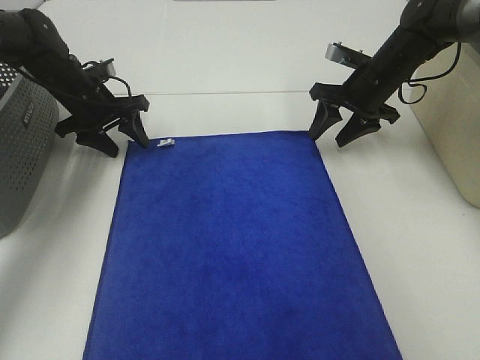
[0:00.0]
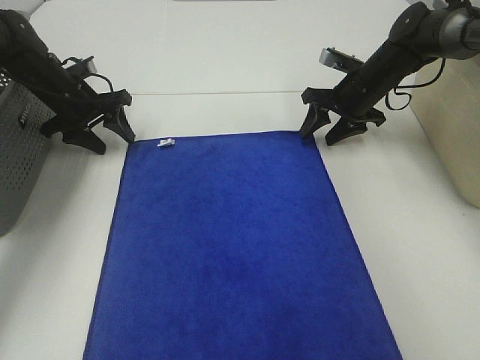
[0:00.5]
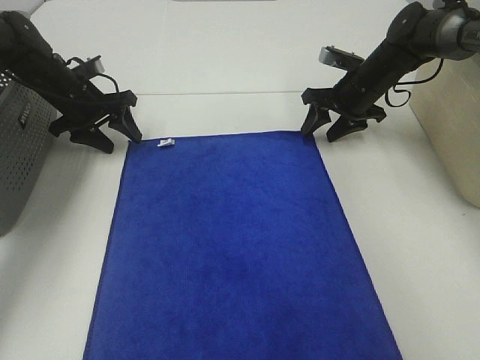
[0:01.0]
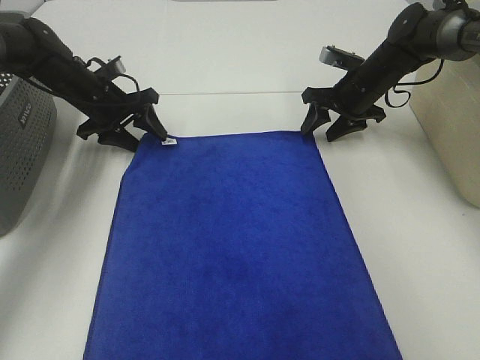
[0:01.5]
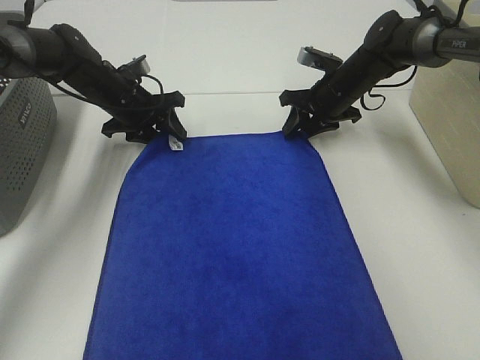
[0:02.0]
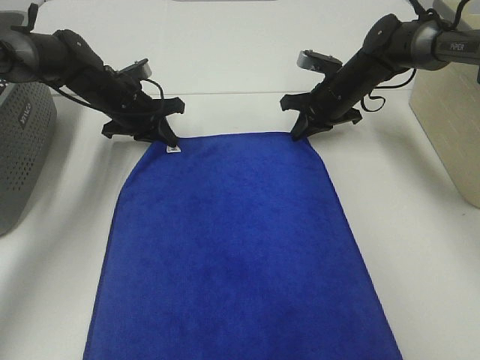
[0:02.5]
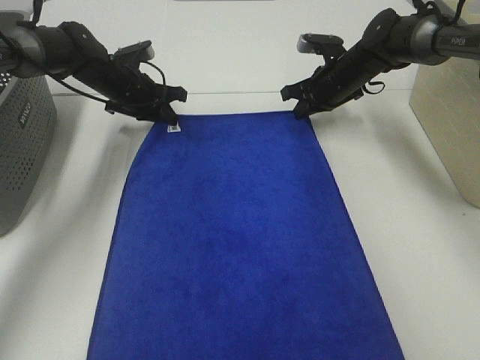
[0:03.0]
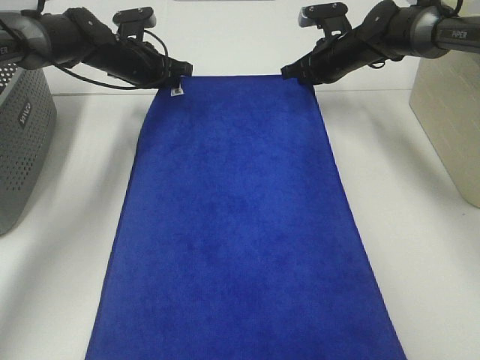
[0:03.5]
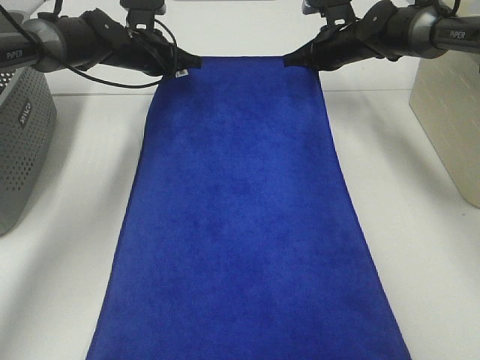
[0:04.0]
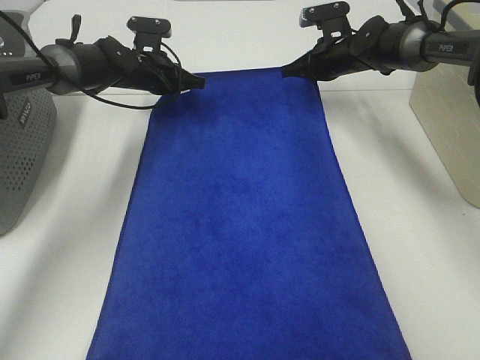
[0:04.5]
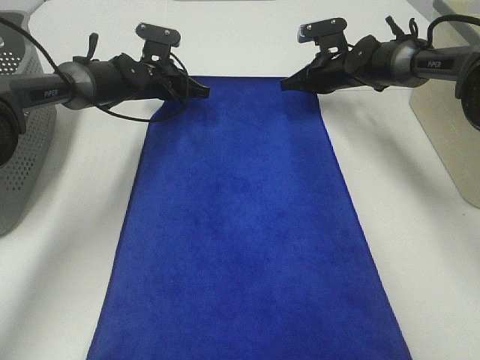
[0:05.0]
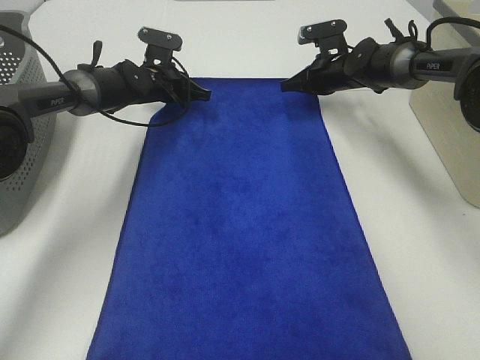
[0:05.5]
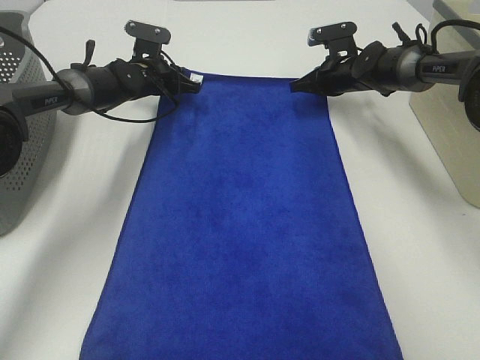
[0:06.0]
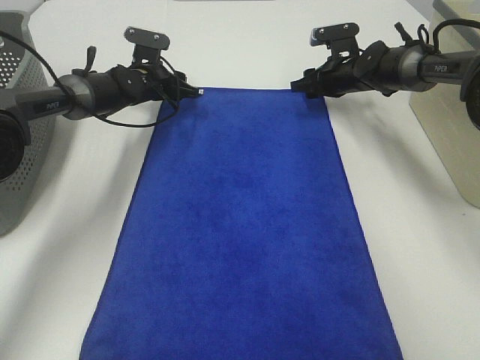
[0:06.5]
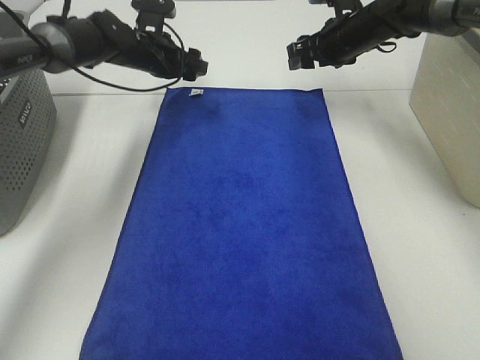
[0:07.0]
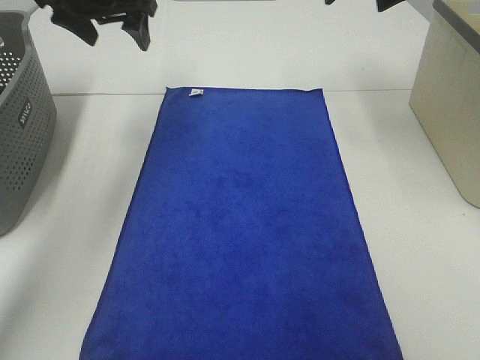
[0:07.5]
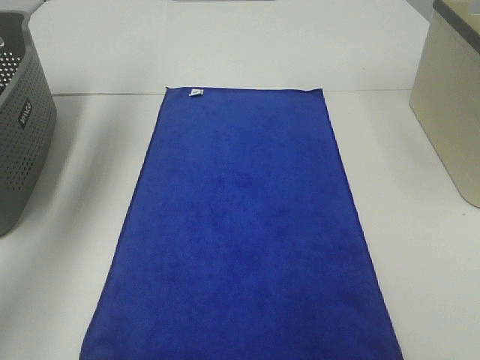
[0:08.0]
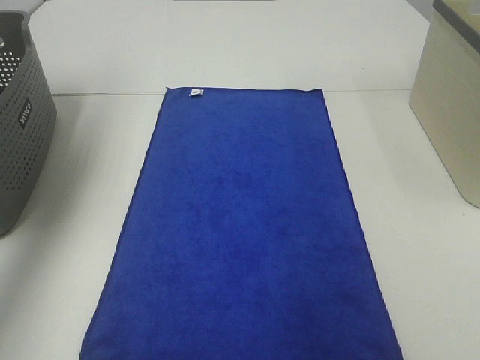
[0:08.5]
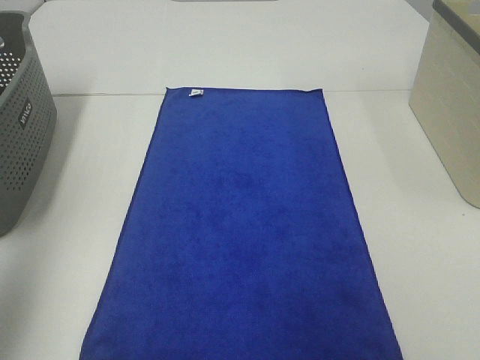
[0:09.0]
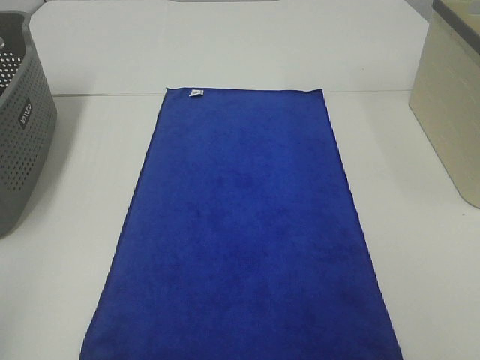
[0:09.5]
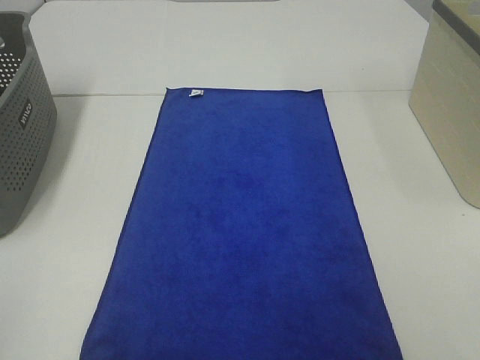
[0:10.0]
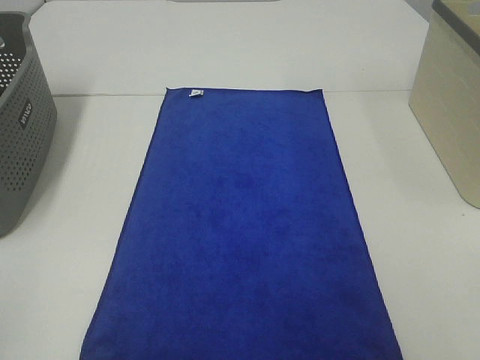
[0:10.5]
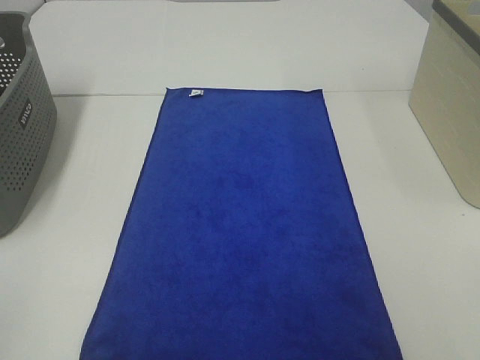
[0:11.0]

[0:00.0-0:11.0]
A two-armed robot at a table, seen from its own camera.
Task of the whole recording: Remove the towel and place it.
0:00.0 to 0:02.0: The right gripper moves about 5 cm, while the left gripper goes roughly 5 cm to the right.
0:02.0 to 0:03.5: The right gripper ends up approximately 5 cm from where it was, and closes. Meanwhile the left gripper ends up approximately 5 cm from where it was, and closes up.
0:03.5 to 0:05.5: The left gripper travels downward by some 5 cm.
0:05.5 to 0:07.5: Both grippers move upward and backward, roughly 25 cm. The left gripper opens; the right gripper opens.
0:07.5 to 0:09.0: The left gripper goes about 35 cm backward and to the left. Meanwhile the right gripper goes roughly 35 cm backward.
0:09.0 to 0:11.0: The left gripper is displaced backward and downward by roughly 20 cm.

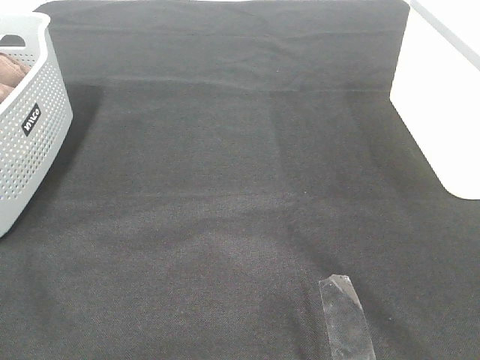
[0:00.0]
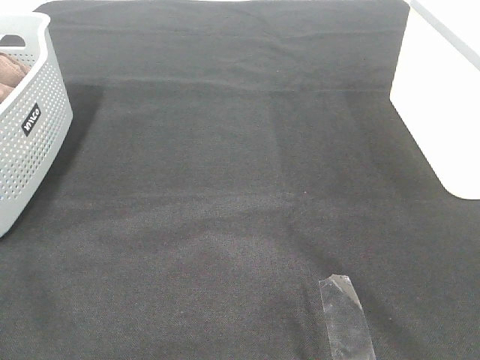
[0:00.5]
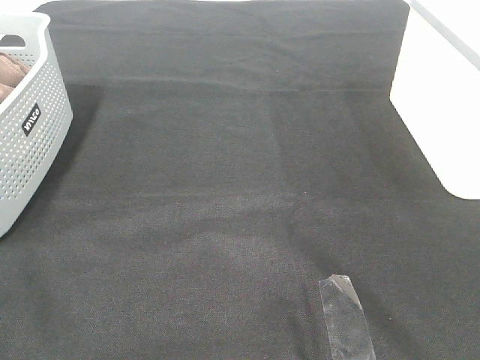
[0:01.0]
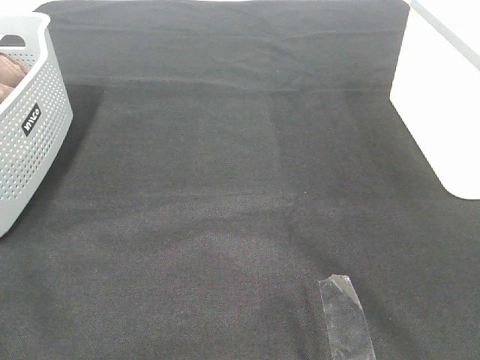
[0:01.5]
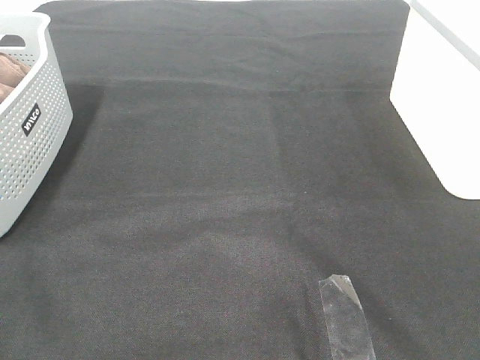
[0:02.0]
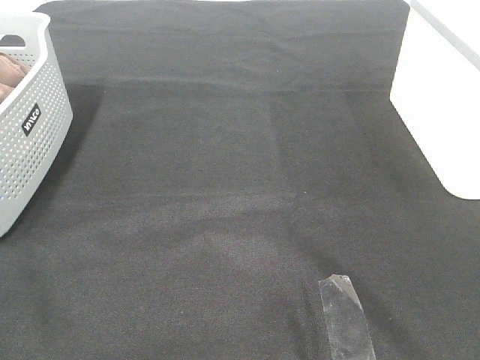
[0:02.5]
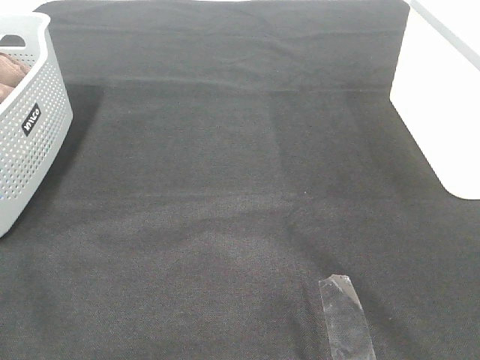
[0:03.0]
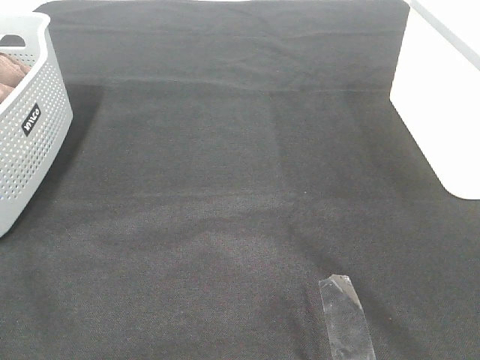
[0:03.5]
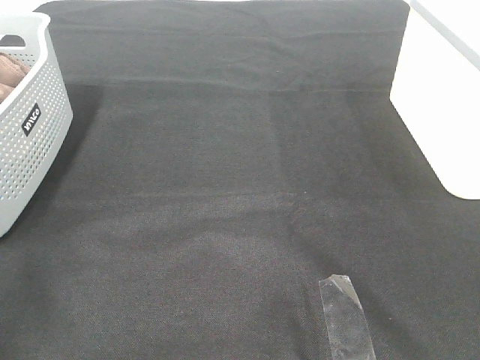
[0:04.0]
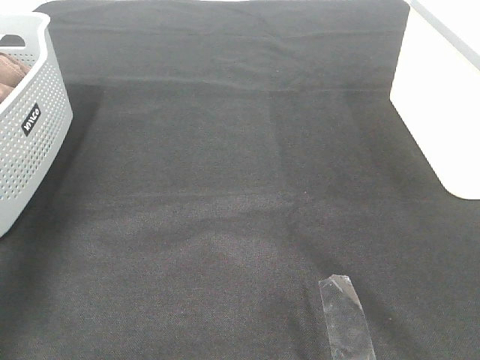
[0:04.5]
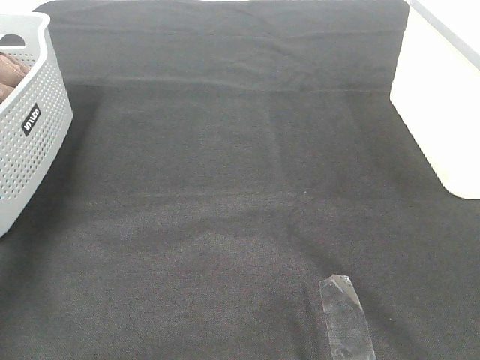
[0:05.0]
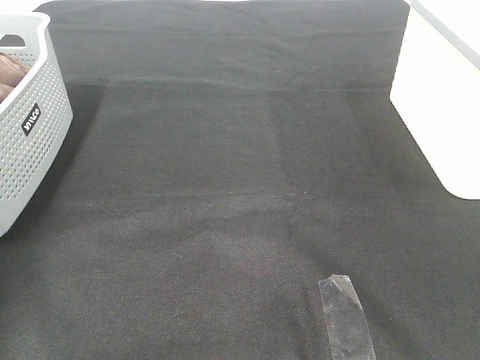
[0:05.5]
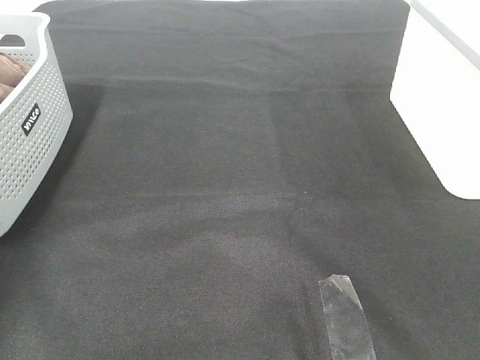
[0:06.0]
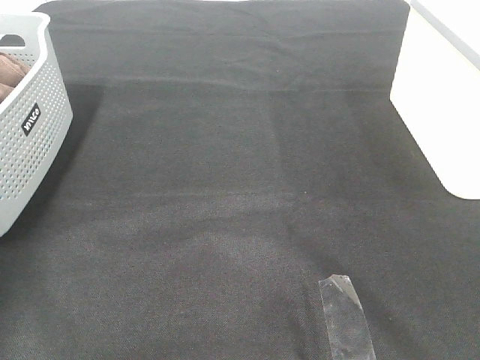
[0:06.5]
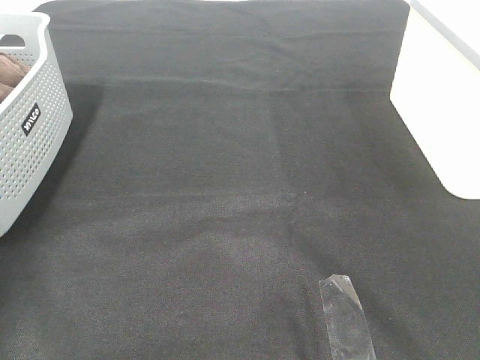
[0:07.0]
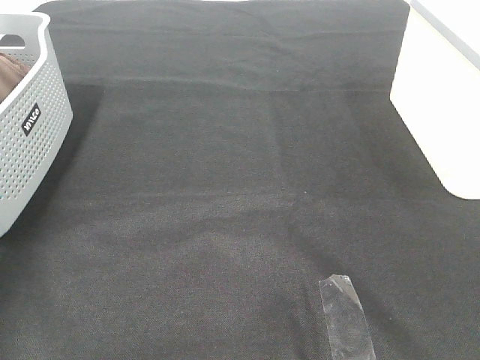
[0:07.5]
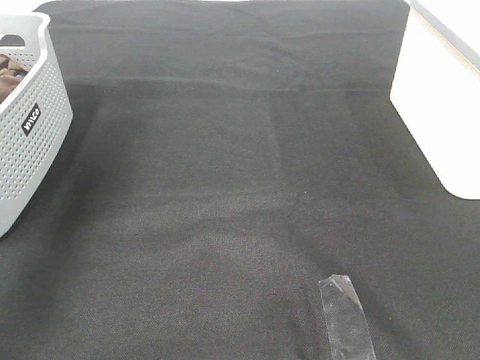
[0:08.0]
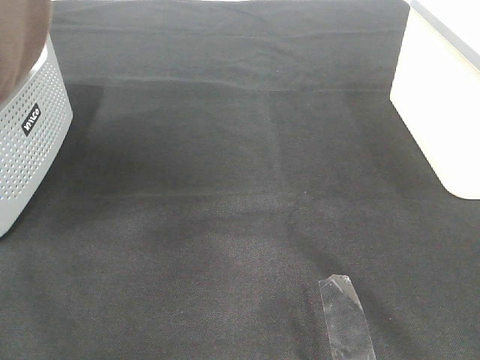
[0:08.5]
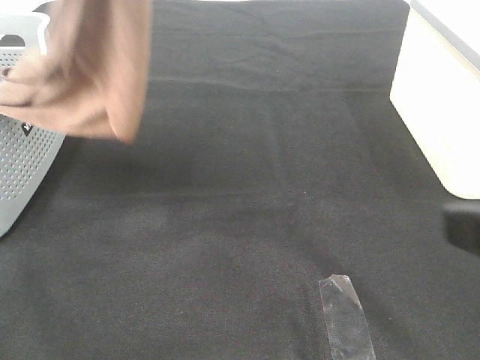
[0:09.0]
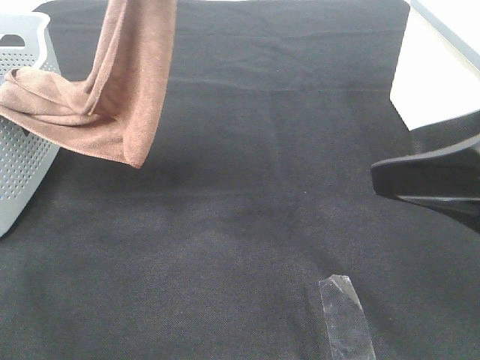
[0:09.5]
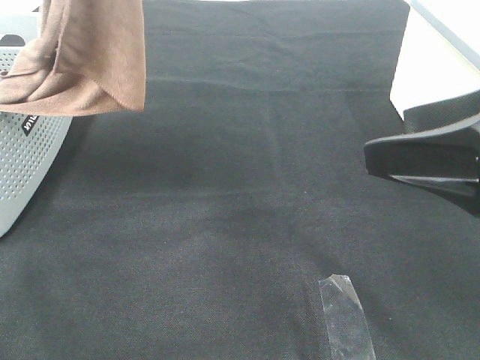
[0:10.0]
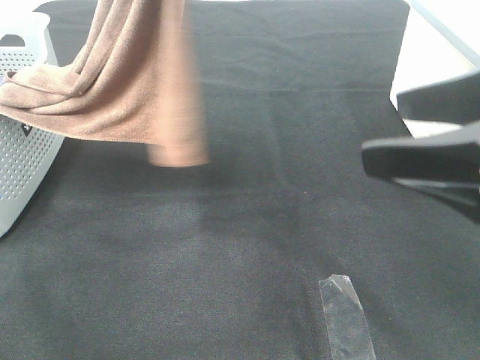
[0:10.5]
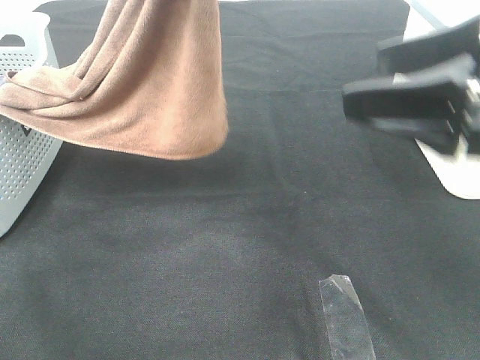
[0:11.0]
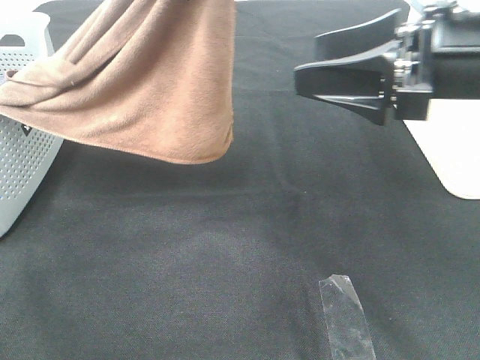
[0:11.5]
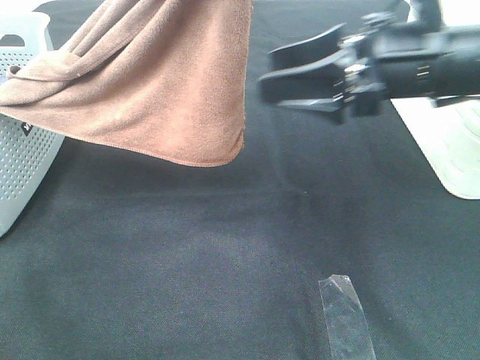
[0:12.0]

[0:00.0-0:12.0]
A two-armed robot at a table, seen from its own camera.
Task of the whole recording: Remove the towel and place it.
0:00.0 to 0:02.0: Both grippers stay put.
0:06.0 to 0:08.0: The left gripper goes roughly 30 cm upward and to the right, and closes.
0:08.0 to 0:10.0: The left gripper shifts approximately 20 cm to the right, while the right gripper heads forward and to the left, covering some 15 cm.
0:10.0 to 0:12.0: The right gripper moves forward and to the left, some 15 cm; the left gripper goes approximately 5 cm to the right.

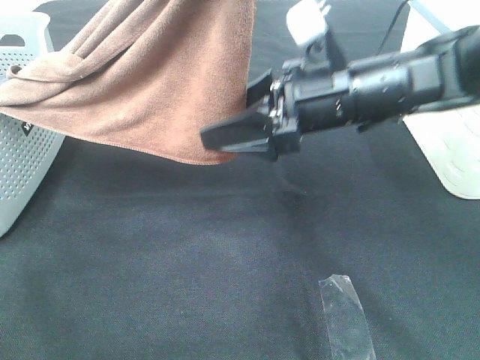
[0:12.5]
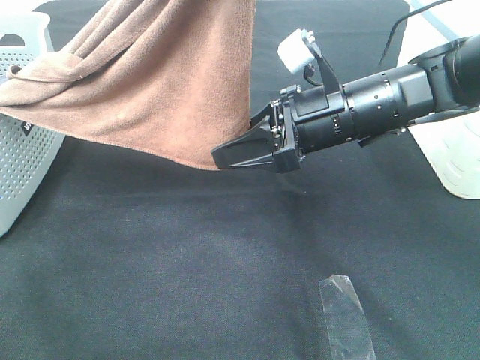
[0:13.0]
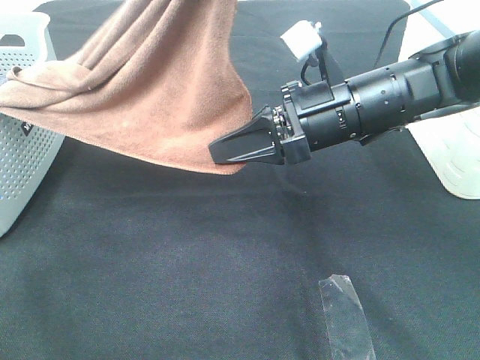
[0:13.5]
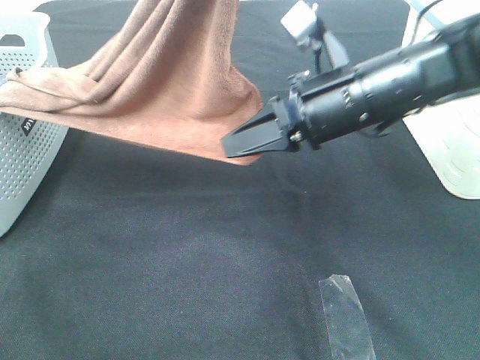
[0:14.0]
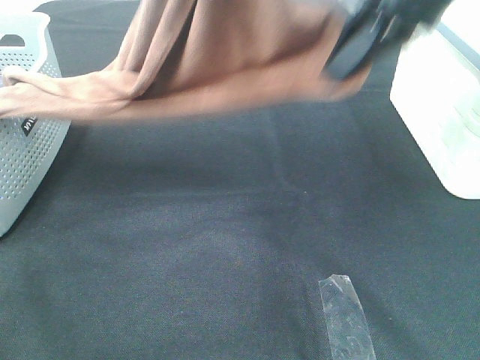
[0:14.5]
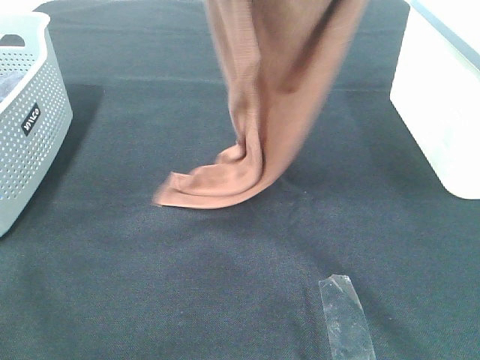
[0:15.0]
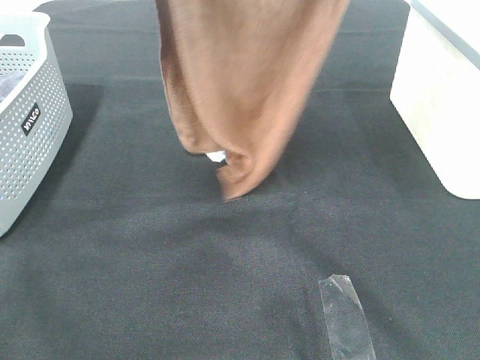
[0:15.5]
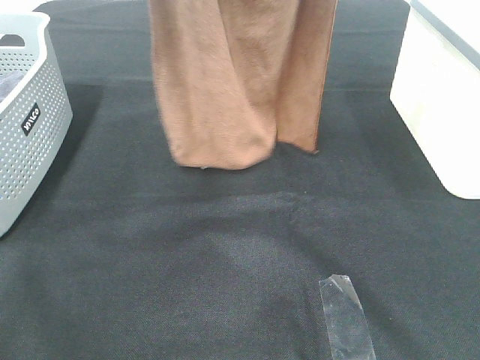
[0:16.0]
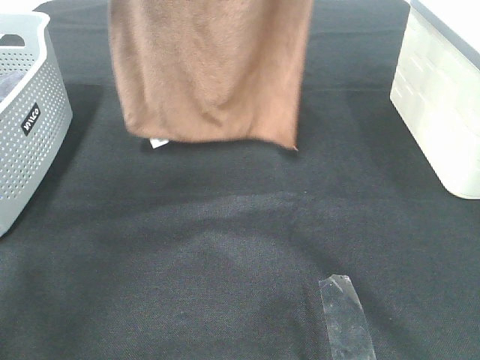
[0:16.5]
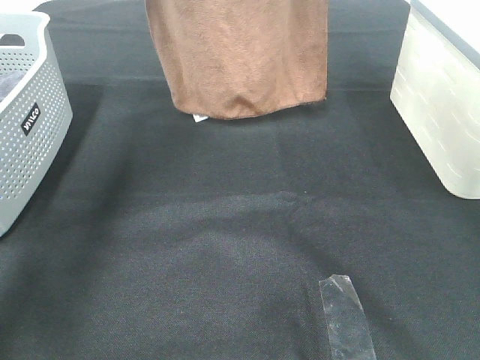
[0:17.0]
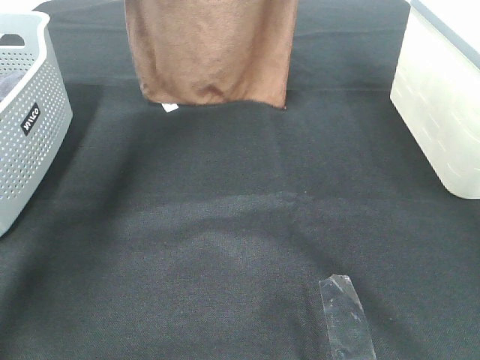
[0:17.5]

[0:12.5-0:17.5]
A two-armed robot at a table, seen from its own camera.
Task of the whole recording: Remove the towel and place it.
0:12.5 to 0:15.0: The right gripper moves upward, approximately 30 cm, and closes up. The left gripper is displaced to the left by approximately 5 cm.
0:15.0 to 0:17.5: The left gripper moves forward and to the left, about 25 cm, while the right gripper heads forward, covering some 20 cm.
